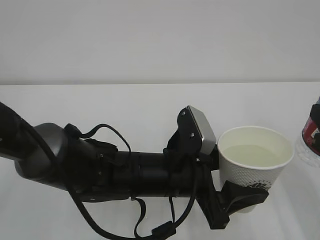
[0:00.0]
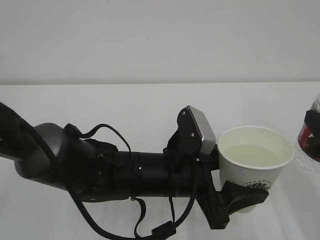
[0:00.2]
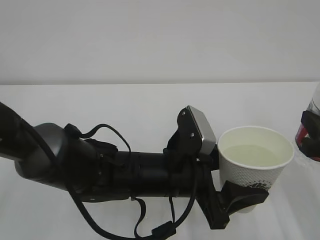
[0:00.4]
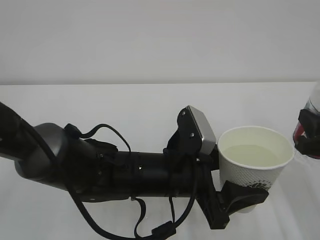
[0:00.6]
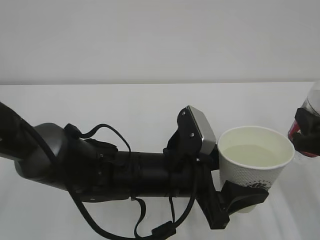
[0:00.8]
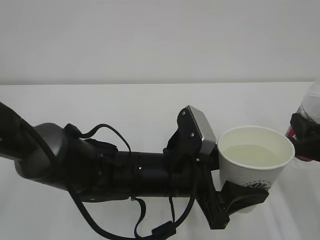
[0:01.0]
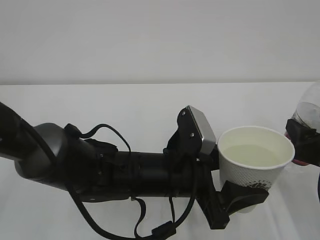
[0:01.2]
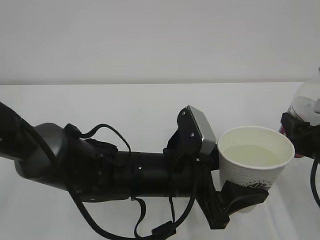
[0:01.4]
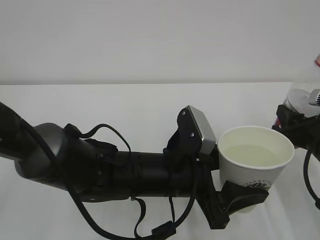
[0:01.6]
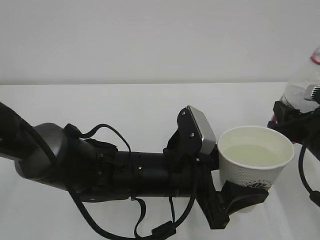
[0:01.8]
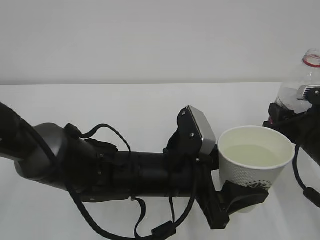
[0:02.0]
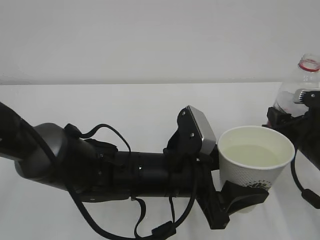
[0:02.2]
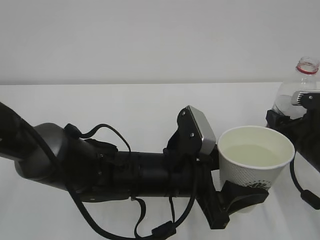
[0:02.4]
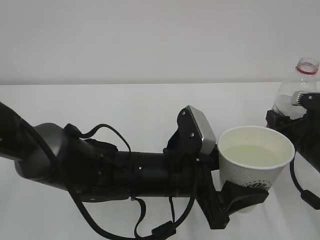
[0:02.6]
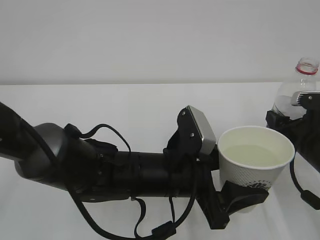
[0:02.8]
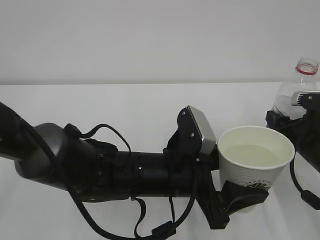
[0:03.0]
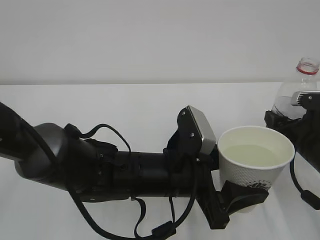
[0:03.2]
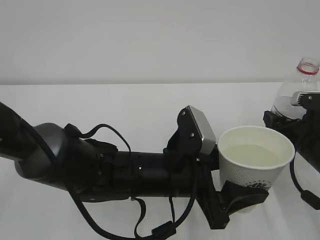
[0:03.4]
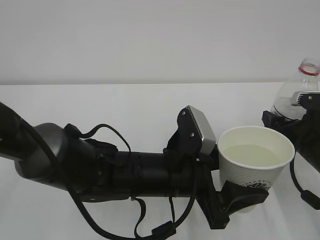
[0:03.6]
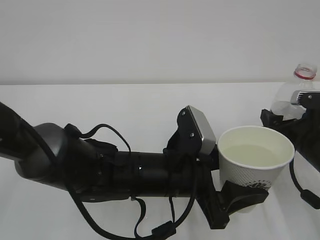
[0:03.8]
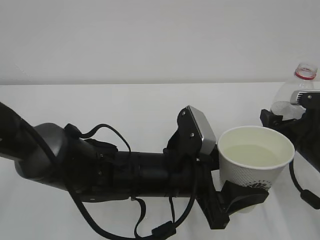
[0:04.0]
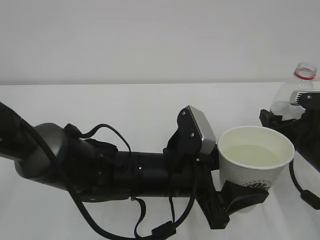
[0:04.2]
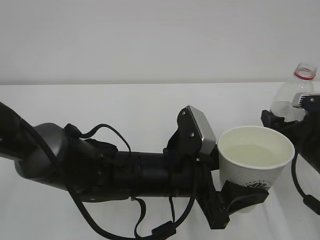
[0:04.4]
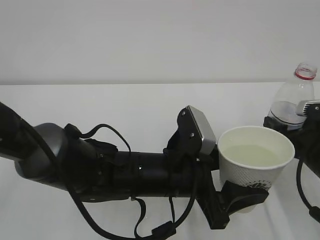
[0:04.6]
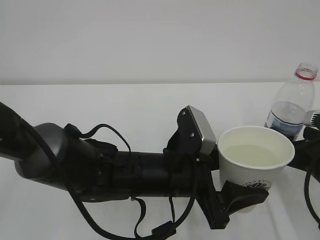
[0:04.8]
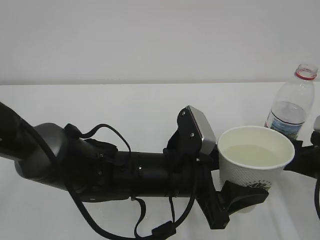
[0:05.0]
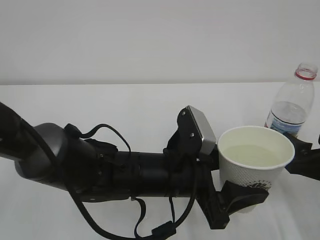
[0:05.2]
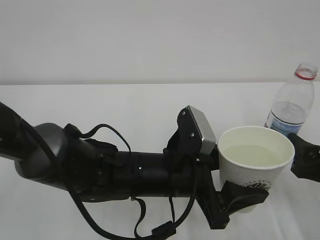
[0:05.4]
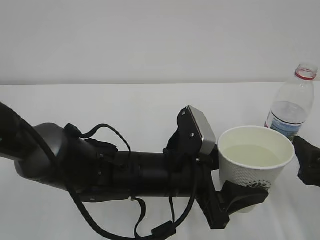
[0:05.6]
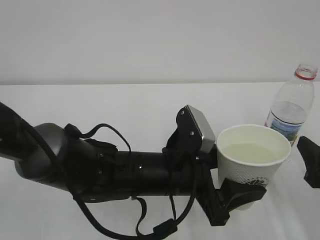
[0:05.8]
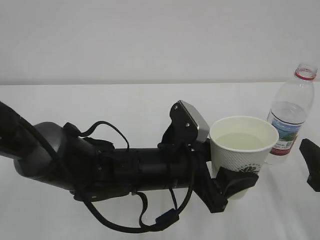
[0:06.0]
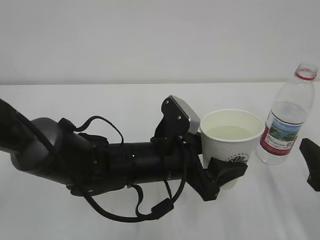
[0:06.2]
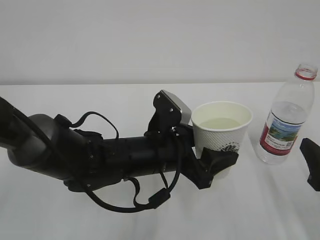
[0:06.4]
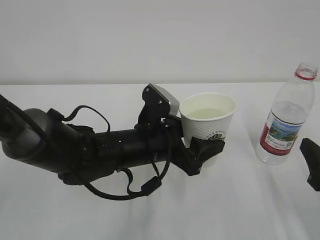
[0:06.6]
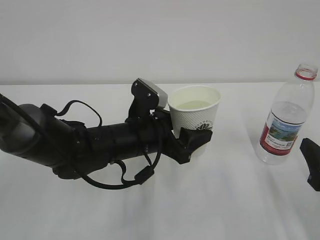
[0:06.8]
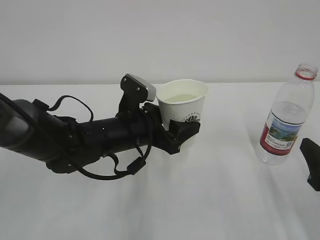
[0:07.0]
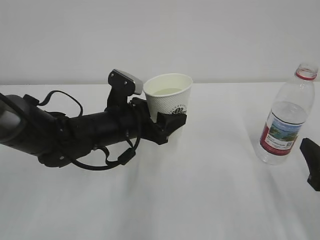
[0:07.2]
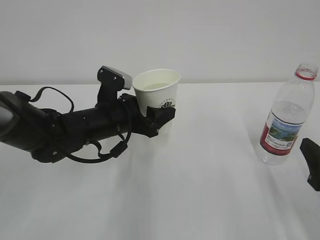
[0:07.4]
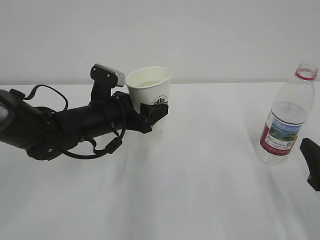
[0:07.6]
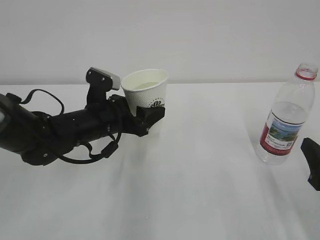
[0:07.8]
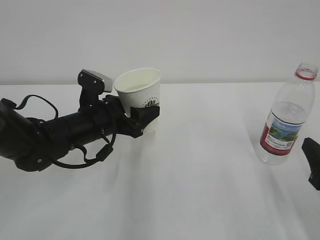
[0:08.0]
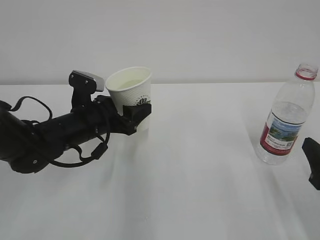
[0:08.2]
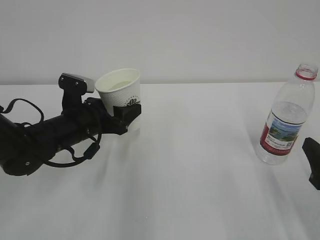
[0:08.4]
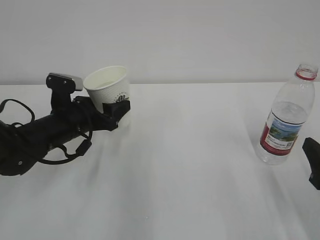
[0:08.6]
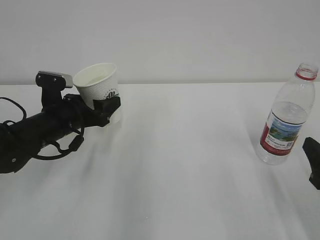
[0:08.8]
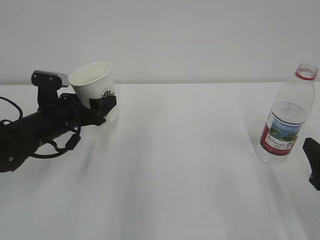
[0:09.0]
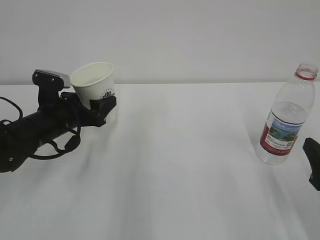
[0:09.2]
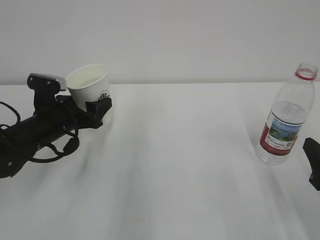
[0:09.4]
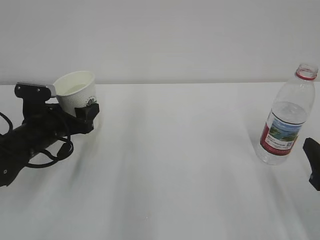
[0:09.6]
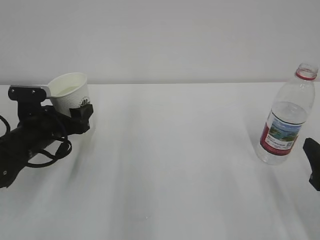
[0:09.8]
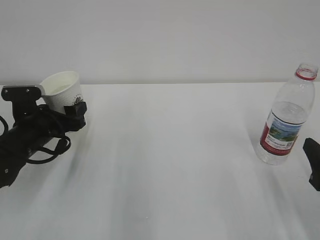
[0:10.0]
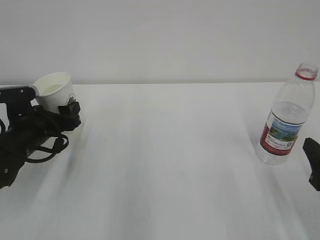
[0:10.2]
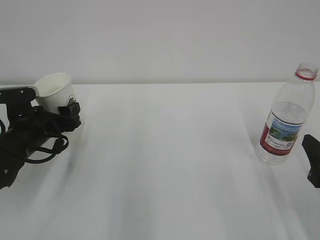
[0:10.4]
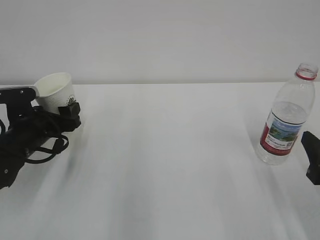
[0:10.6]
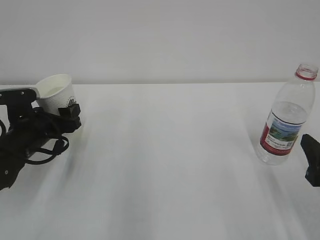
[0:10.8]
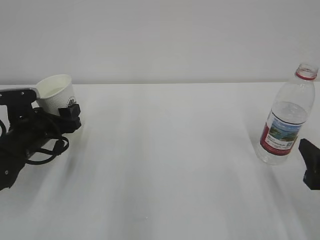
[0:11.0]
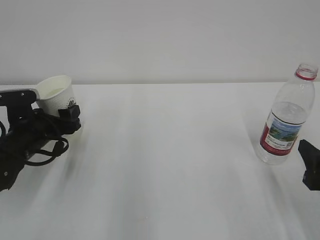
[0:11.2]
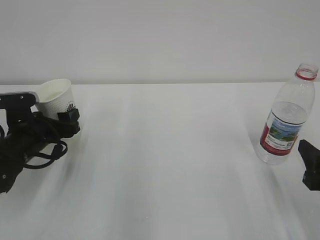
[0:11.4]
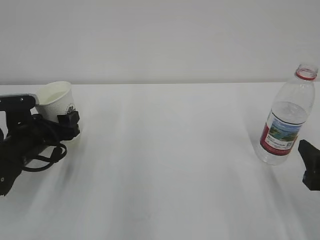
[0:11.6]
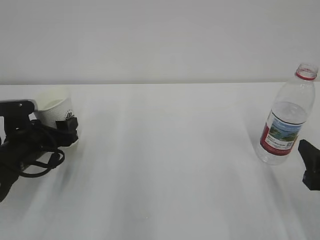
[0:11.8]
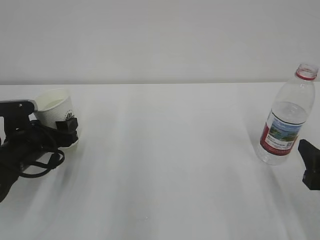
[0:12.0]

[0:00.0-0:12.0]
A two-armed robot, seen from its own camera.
0:00.0 to 0:01.6: The right gripper shifts some 10 cm forward and downward.
0:01.6 to 0:03.0: There are only small adjustments of the grippers.
0:03.0 to 0:04.4: The right gripper opens its fingers.
0:04.4 to 0:06.0: The right gripper shifts some 10 cm backward.
0:06.0 to 0:07.6: The left gripper is displaced to the left and forward by approximately 15 cm.
0:07.6 to 0:09.0: The left gripper moves to the left, roughly 10 cm.
0:10.4 to 0:12.0: The grippers stay close to where they were, moving slightly.

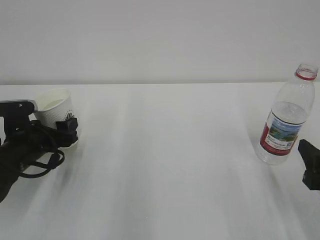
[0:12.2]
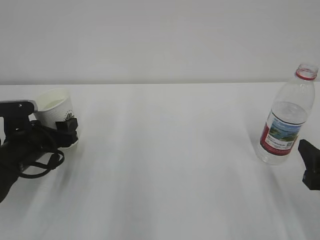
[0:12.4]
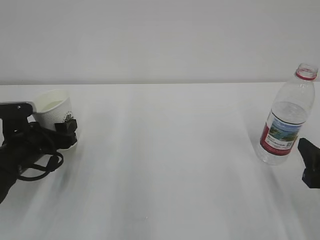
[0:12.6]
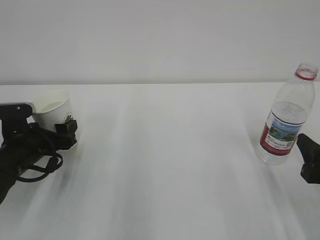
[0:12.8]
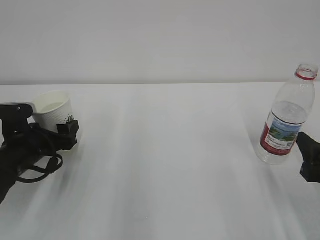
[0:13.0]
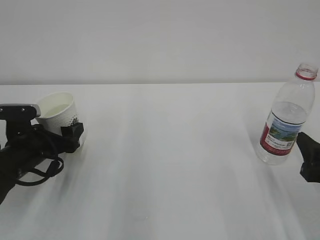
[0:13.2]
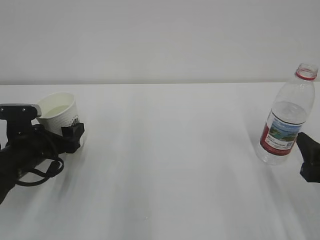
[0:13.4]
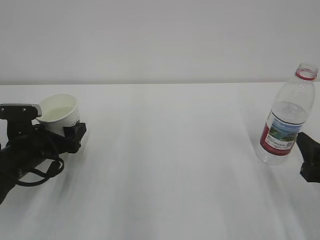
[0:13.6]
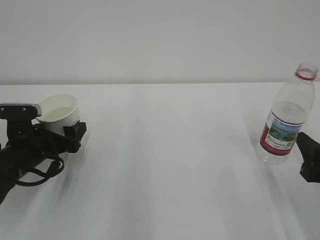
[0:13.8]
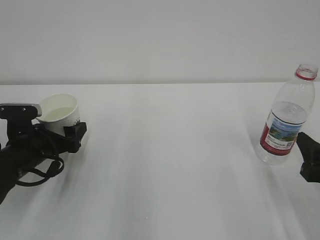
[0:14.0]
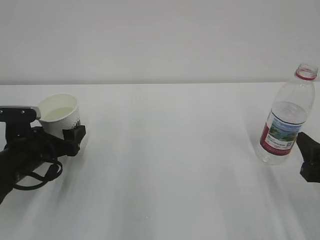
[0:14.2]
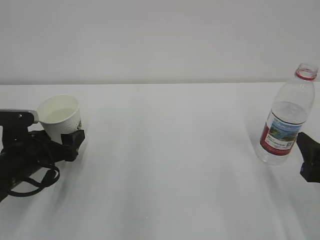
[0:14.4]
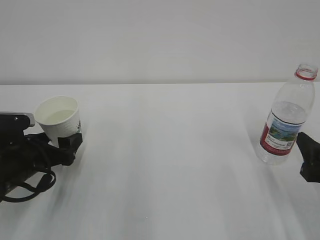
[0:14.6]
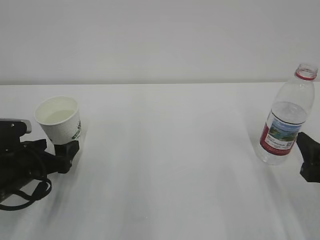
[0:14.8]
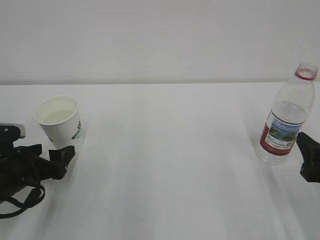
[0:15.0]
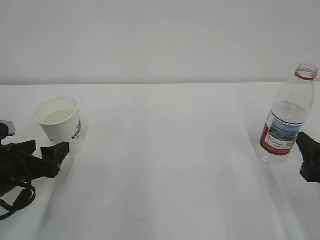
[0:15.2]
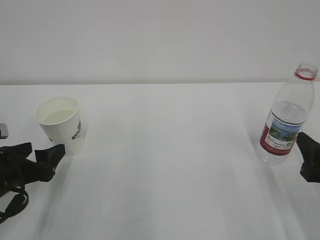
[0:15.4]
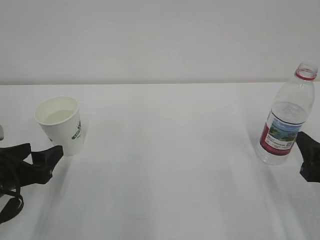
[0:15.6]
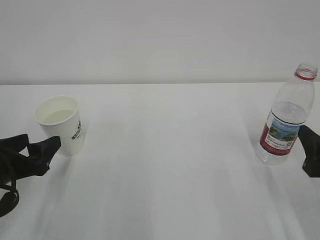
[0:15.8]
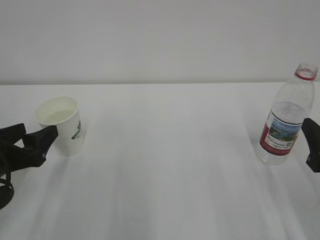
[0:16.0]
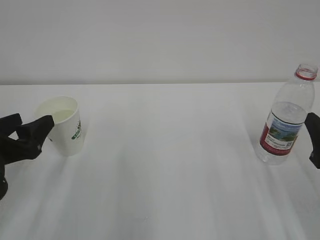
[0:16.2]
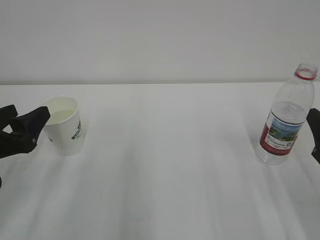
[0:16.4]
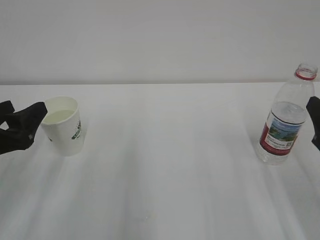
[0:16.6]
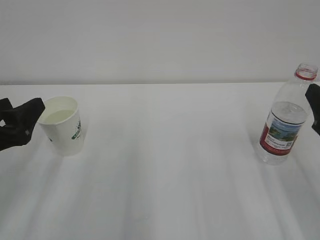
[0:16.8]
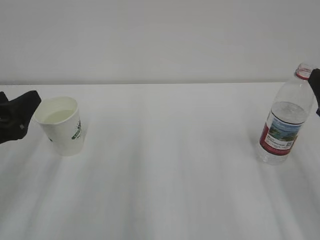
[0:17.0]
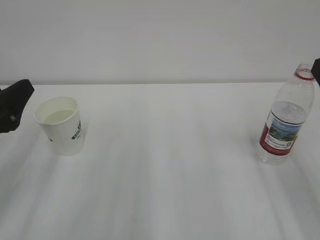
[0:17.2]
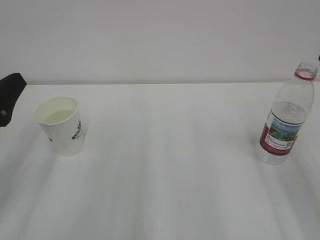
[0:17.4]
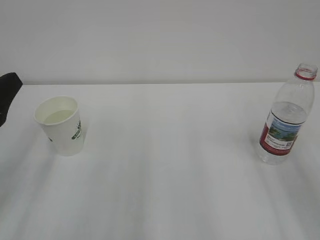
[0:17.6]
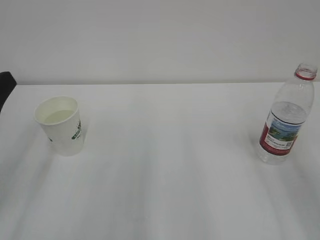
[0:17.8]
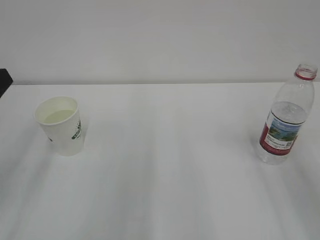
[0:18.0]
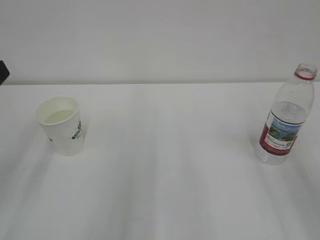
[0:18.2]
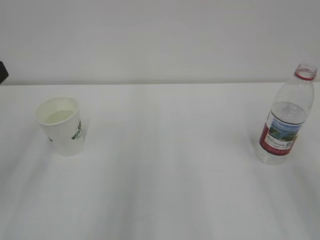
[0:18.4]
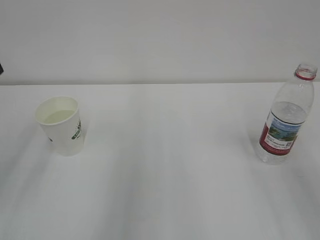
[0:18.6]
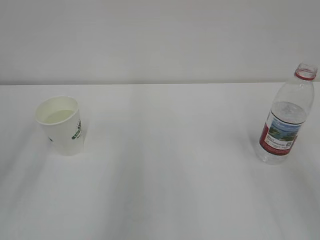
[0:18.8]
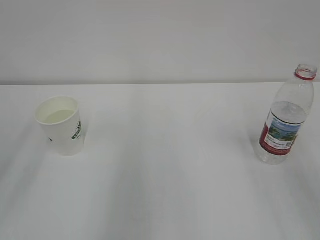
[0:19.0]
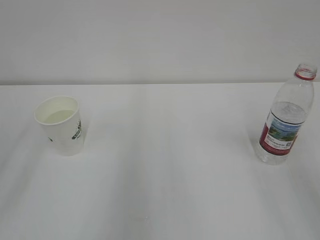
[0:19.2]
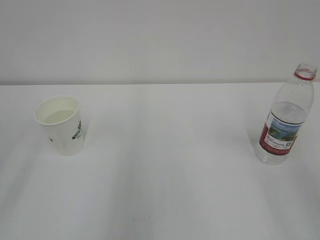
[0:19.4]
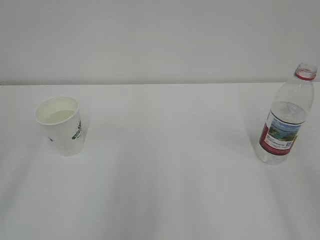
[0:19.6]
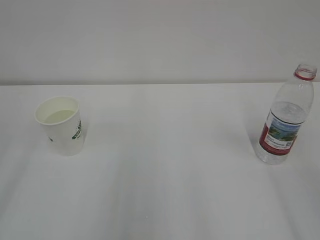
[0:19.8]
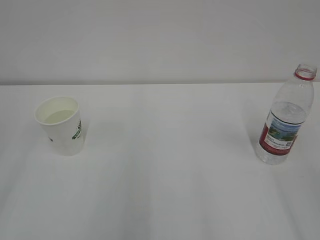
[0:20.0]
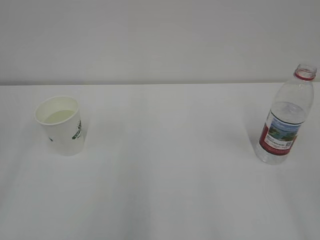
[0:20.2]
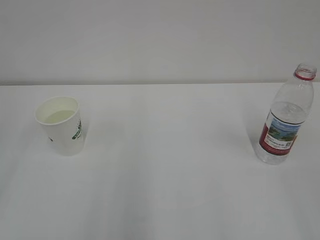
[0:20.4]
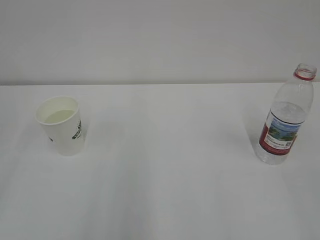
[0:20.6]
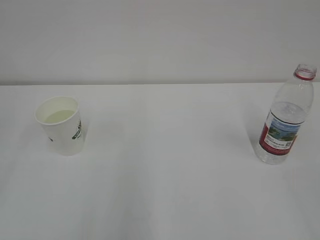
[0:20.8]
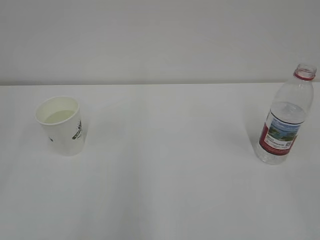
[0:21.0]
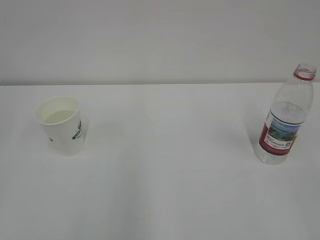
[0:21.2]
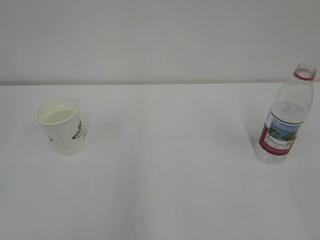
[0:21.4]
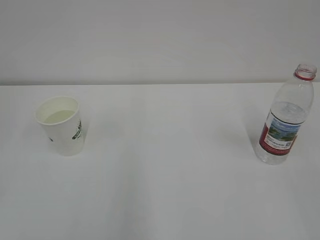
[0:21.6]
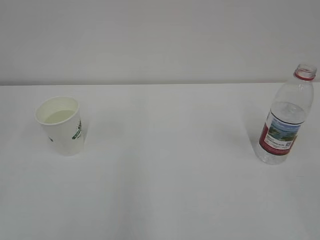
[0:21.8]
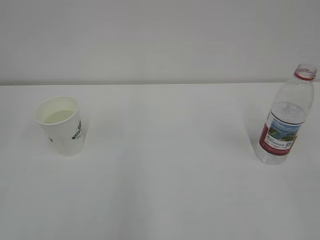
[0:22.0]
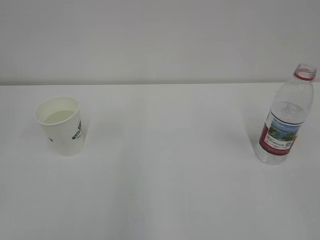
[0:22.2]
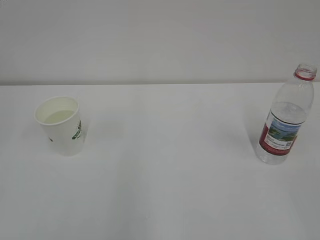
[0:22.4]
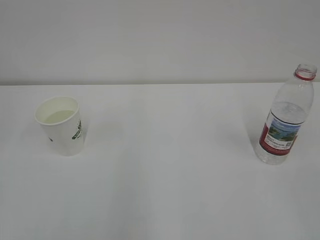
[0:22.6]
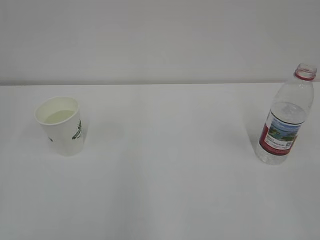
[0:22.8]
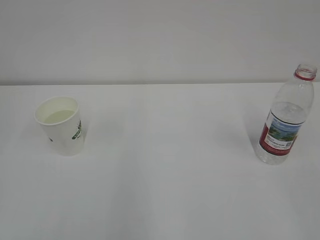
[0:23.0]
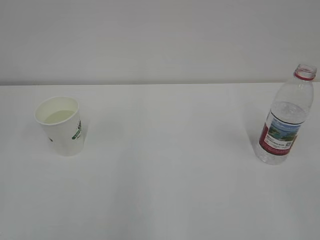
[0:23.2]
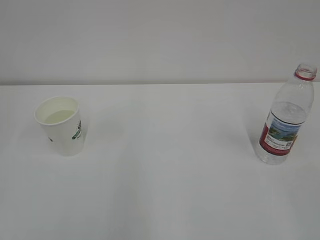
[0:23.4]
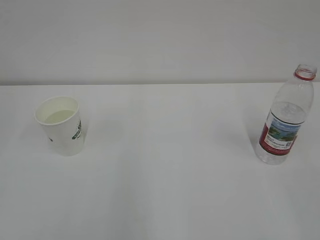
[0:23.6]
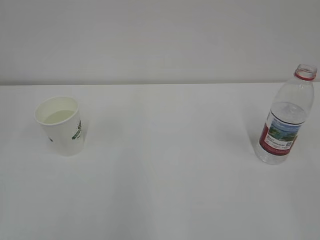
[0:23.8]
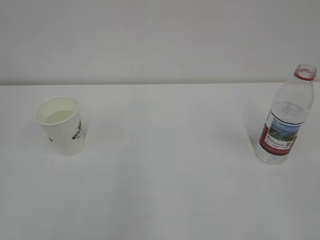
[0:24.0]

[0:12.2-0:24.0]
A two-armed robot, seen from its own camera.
0:12.2 to 0:13.6: The left gripper opens its fingers.
0:13.6 to 0:15.2: The left gripper goes about 5 cm backward.
0:15.2 to 0:16.6: The right gripper is displaced upward by about 5 cm. Meanwhile the left gripper shifts approximately 10 cm upward, and closes up.
0:16.6 to 0:18.2: The left gripper goes some 10 cm upward.
